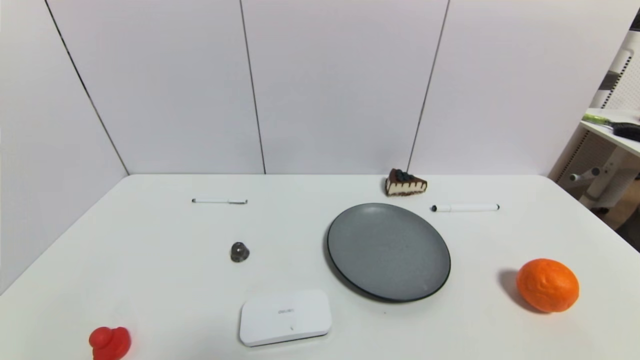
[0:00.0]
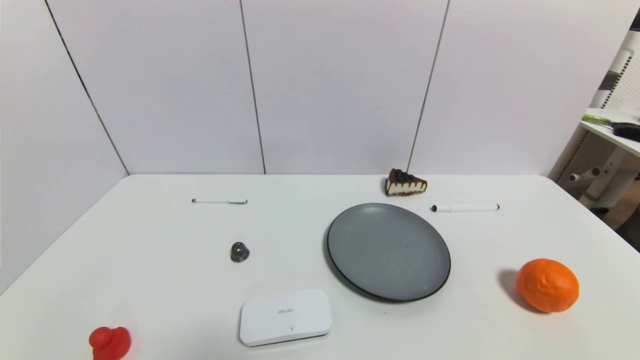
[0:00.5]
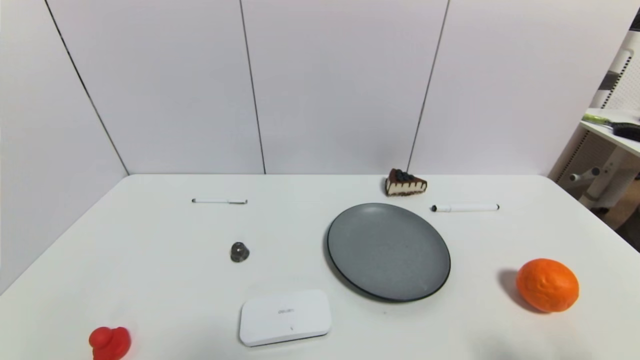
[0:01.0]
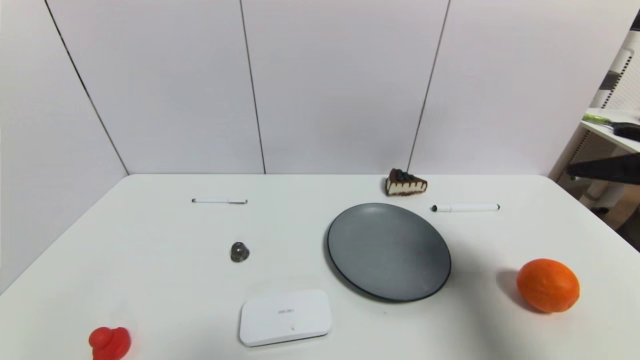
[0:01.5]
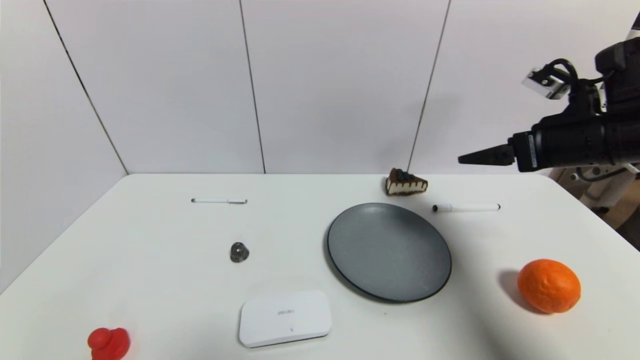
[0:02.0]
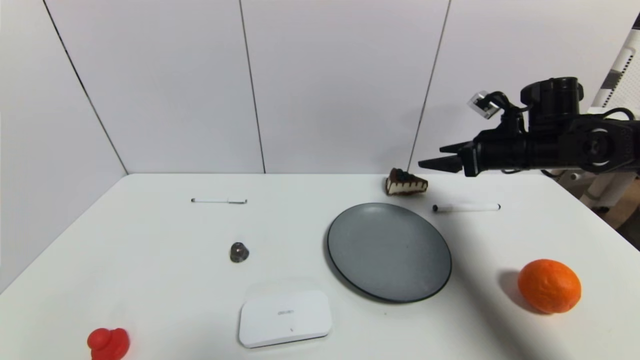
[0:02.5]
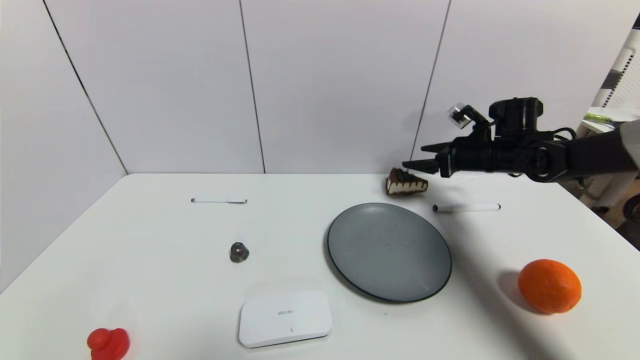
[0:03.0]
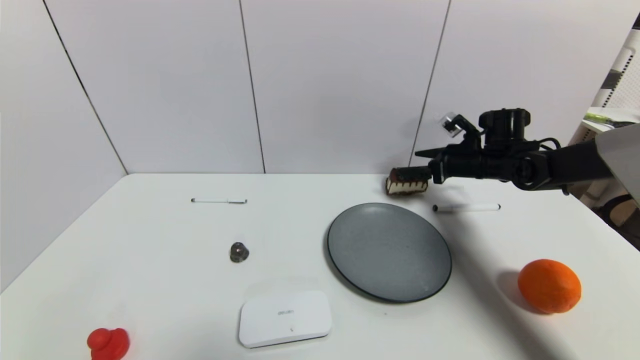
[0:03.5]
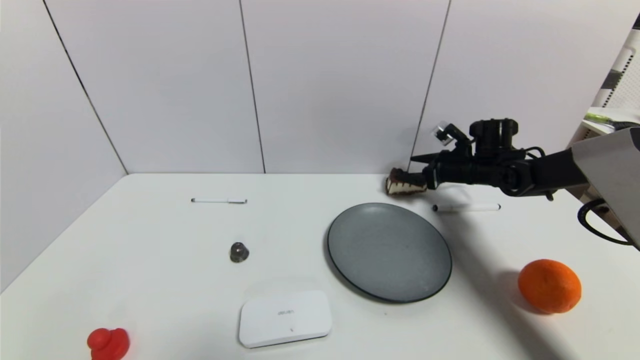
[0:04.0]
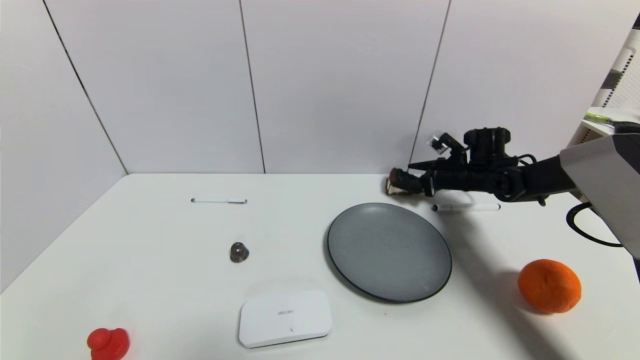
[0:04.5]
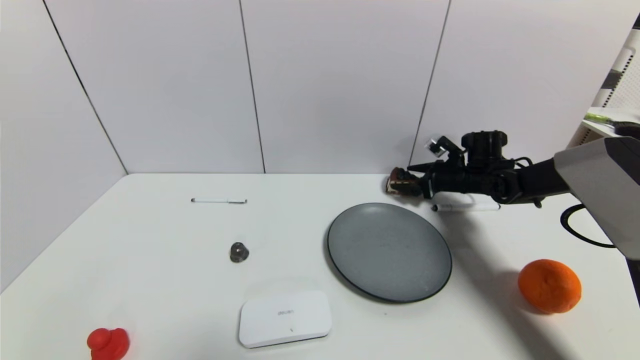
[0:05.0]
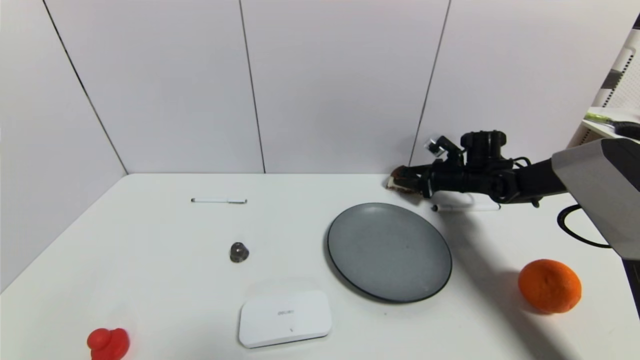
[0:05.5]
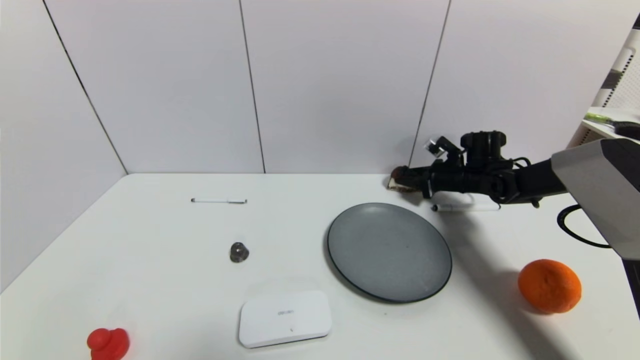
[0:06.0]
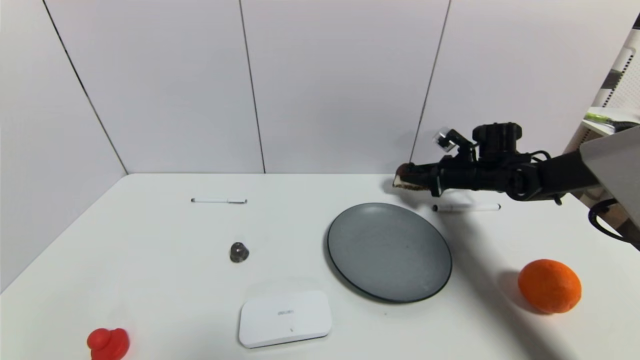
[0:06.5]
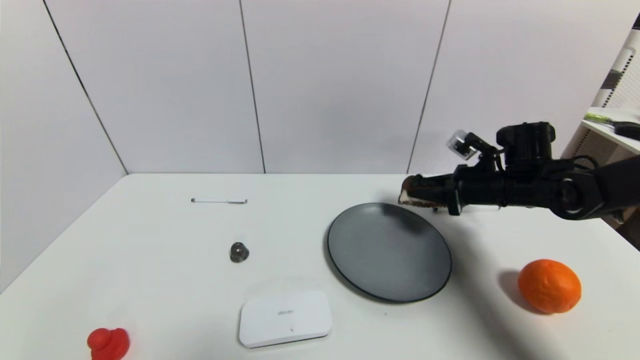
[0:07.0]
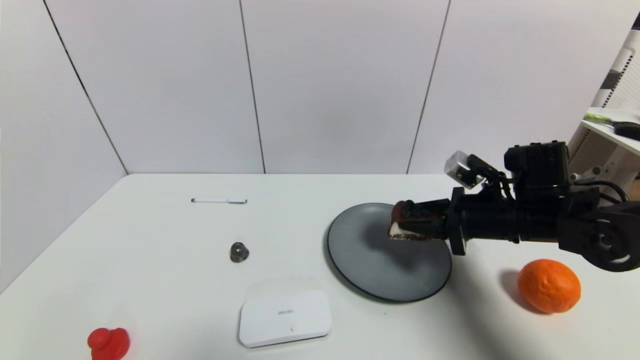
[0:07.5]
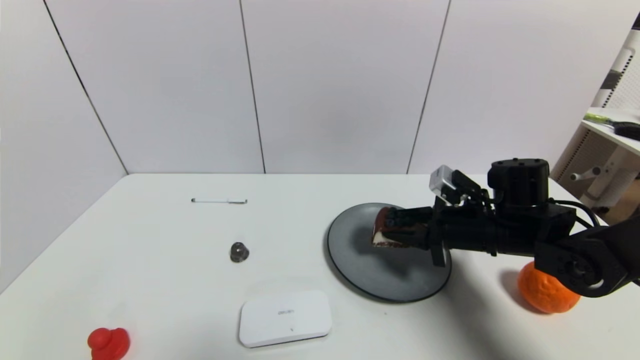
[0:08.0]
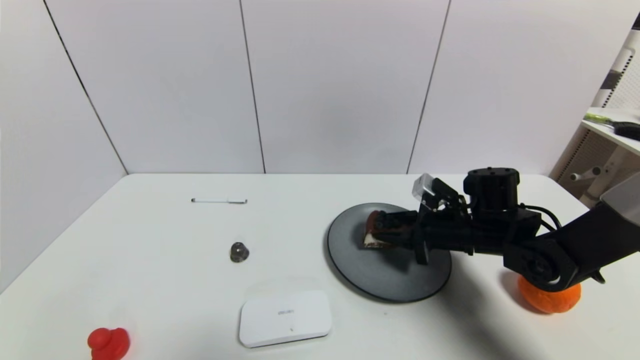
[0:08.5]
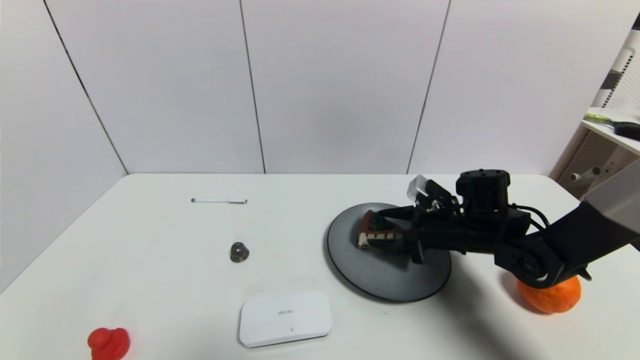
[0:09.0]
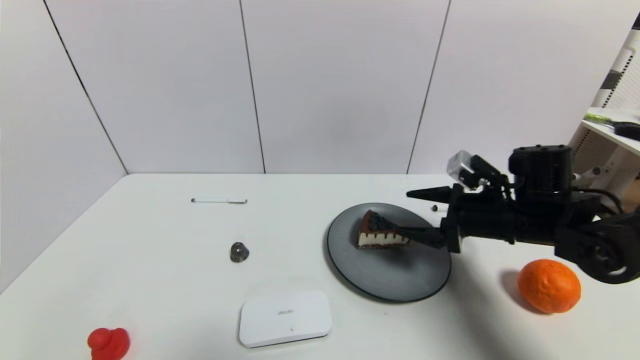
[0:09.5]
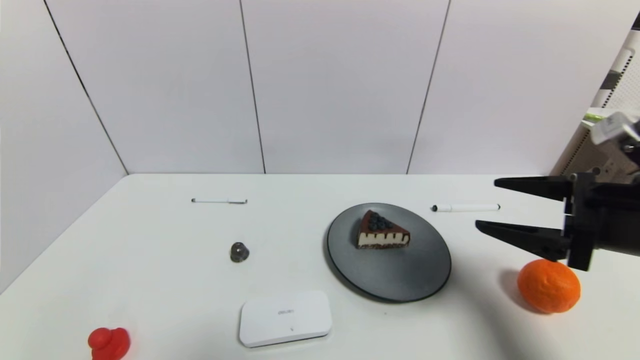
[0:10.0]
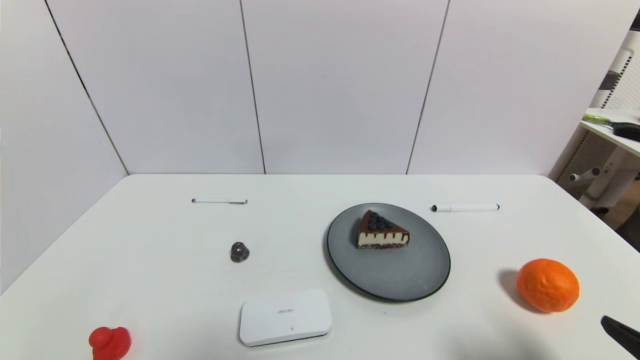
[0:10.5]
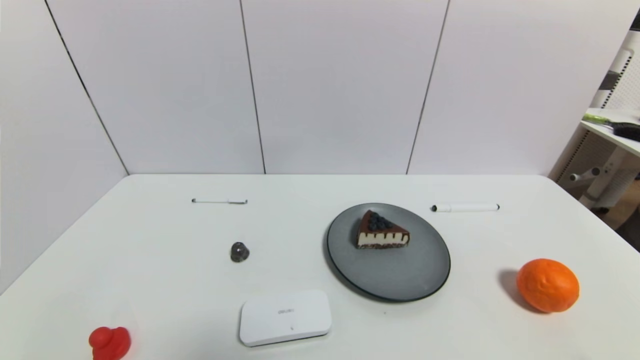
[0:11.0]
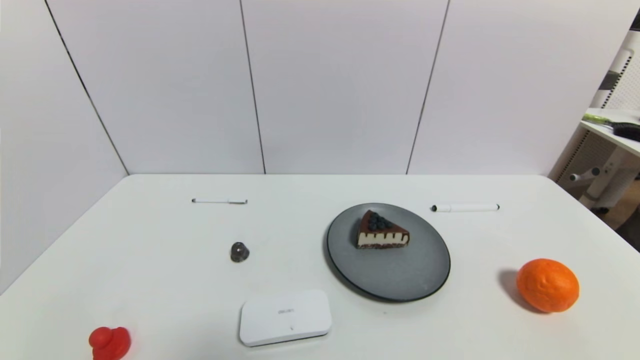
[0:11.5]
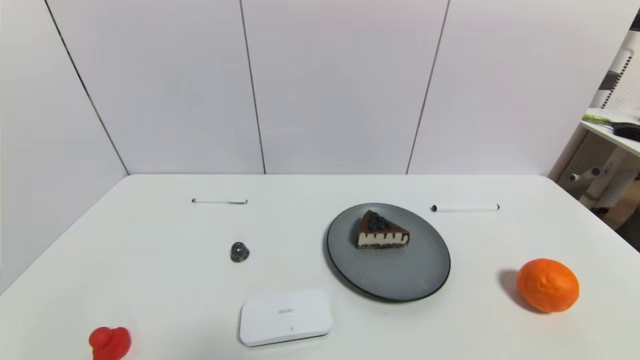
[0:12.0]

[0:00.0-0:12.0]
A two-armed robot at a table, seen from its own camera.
Task of the whole recording: use a gripper to pick the target object and place on the gray plate.
Step, 0:00.0 to 0:05.5: Grasp the chocolate cake with the right gripper.
Step, 0:06.0 to 0:09.0: Place the chocolate cake on the gray plate with the right gripper.
0:00.0 to 0:02.0: The right gripper is displaced forward and upward by roughly 35 cm.
0:02.0 to 0:04.0: The right gripper moves forward and downward, about 20 cm.
0:04.0 to 0:06.0: The right gripper closes up.
0:06.0 to 0:08.0: The right gripper moves backward, roughly 20 cm.
0:08.0 to 0:10.0: The right gripper heads backward, upward and to the right, covering roughly 15 cm, and opens.
0:10.0 to 0:12.0: The right gripper moves backward and downward, approximately 25 cm.
